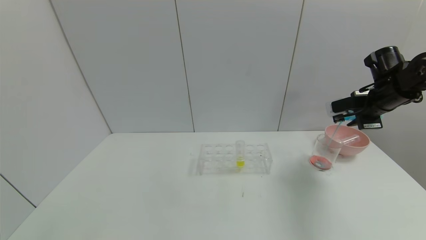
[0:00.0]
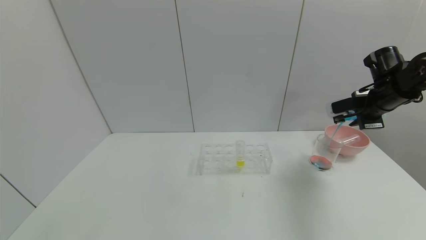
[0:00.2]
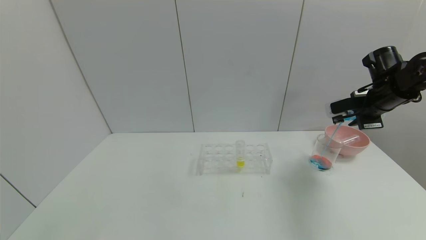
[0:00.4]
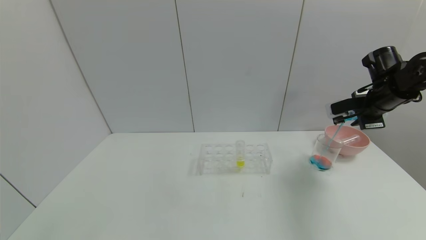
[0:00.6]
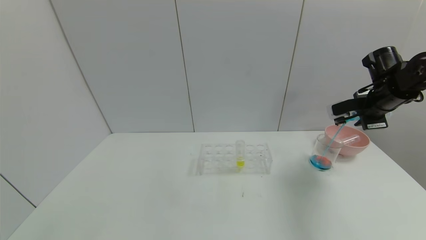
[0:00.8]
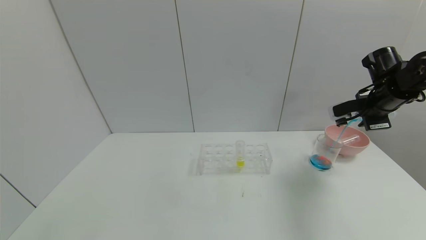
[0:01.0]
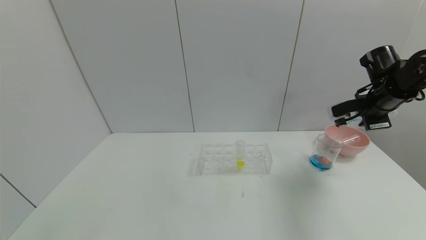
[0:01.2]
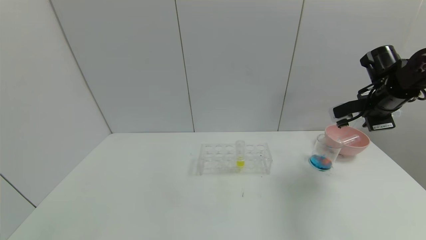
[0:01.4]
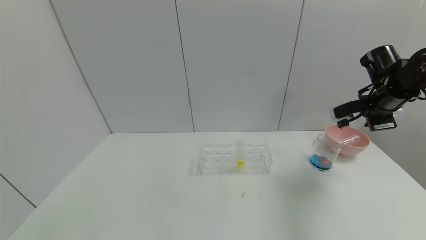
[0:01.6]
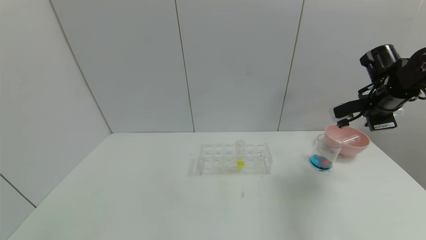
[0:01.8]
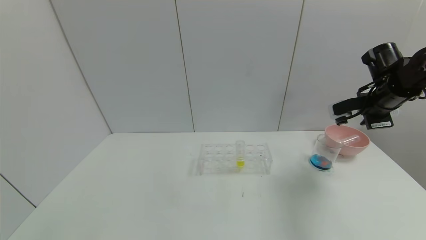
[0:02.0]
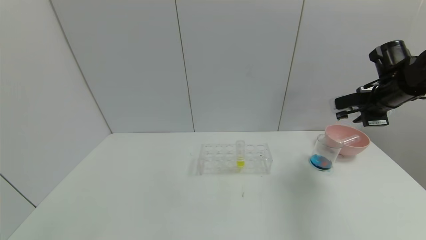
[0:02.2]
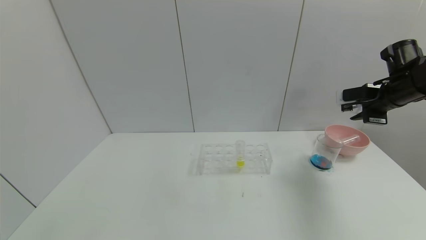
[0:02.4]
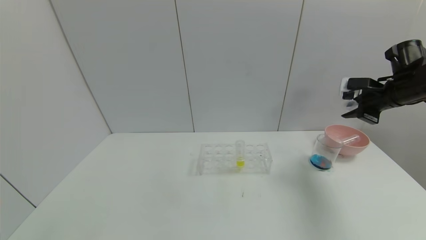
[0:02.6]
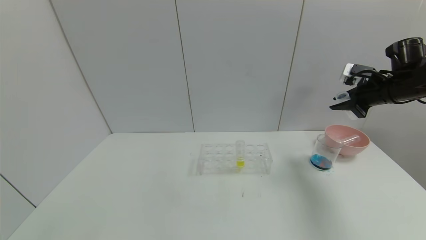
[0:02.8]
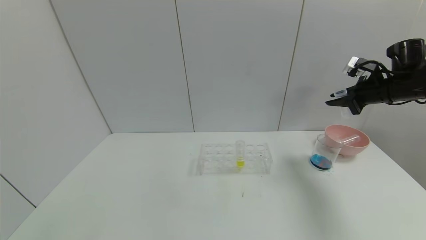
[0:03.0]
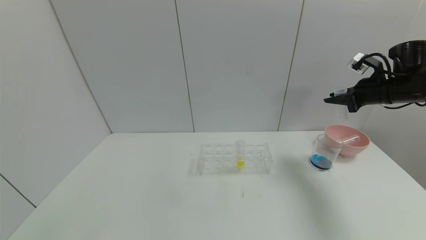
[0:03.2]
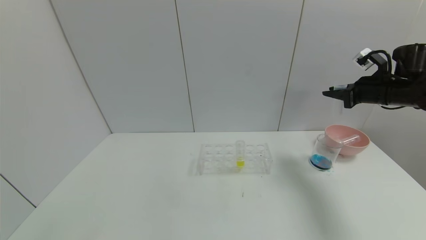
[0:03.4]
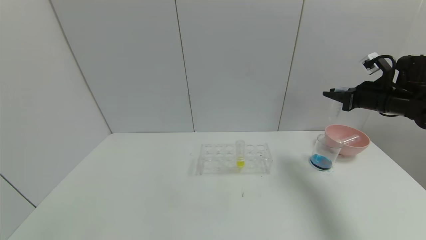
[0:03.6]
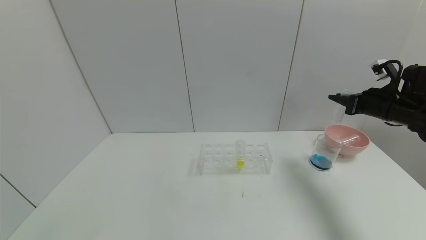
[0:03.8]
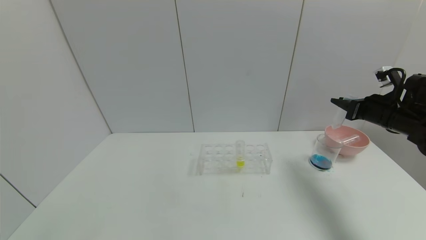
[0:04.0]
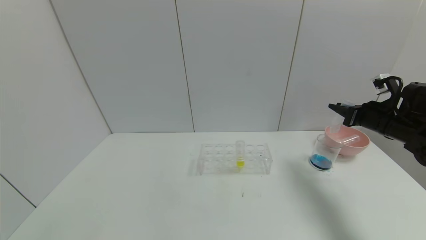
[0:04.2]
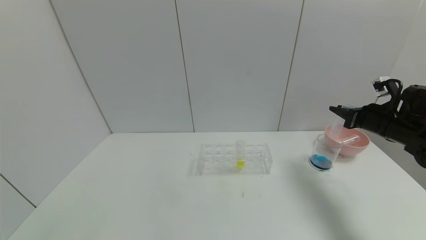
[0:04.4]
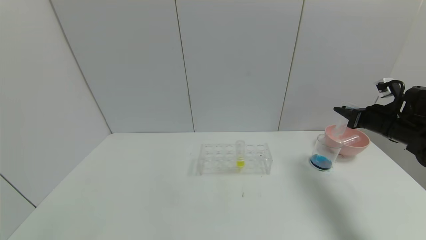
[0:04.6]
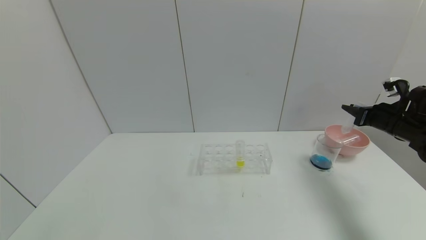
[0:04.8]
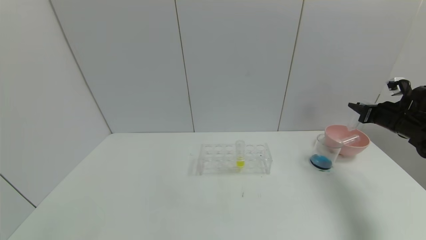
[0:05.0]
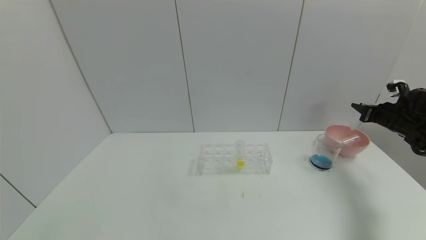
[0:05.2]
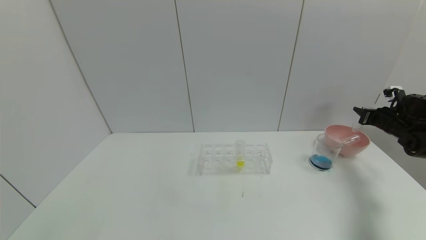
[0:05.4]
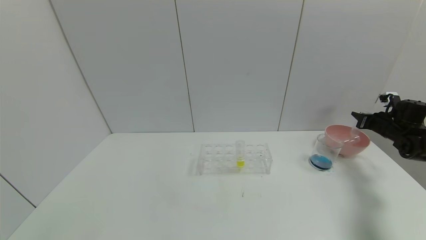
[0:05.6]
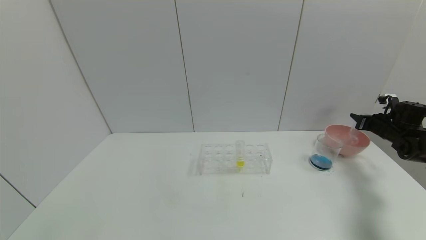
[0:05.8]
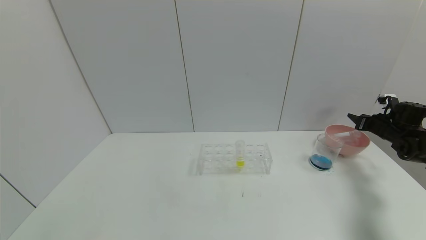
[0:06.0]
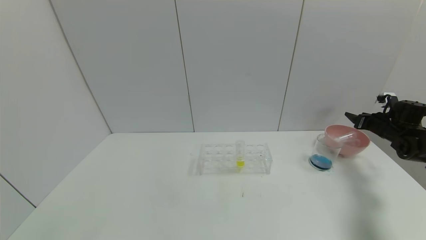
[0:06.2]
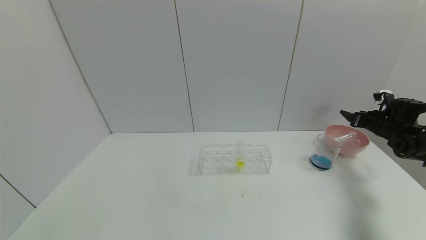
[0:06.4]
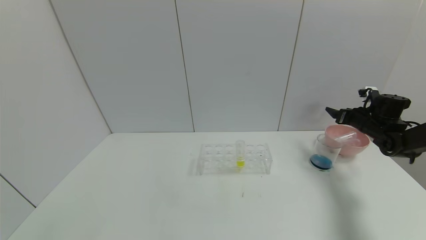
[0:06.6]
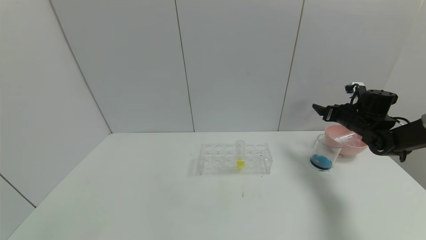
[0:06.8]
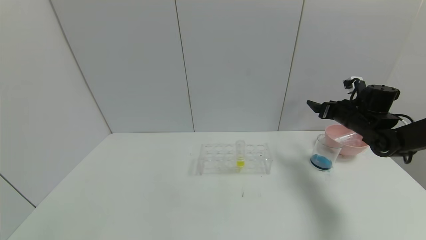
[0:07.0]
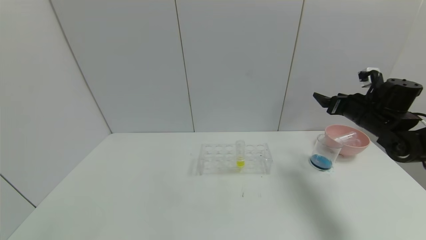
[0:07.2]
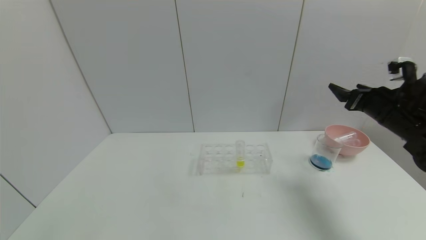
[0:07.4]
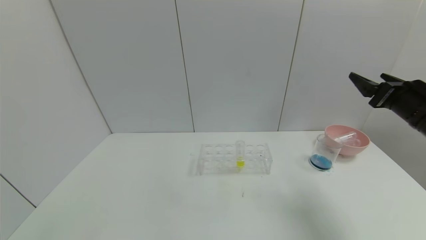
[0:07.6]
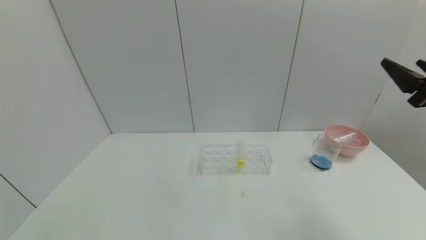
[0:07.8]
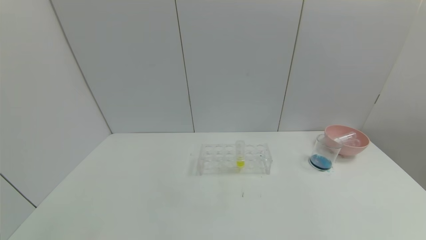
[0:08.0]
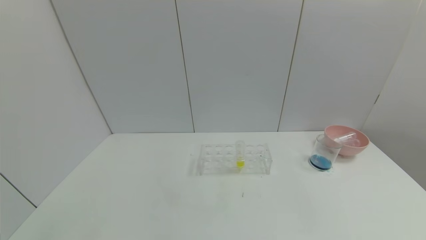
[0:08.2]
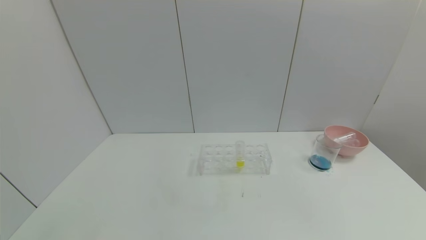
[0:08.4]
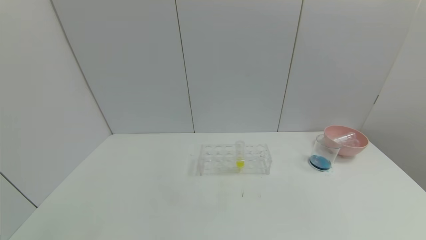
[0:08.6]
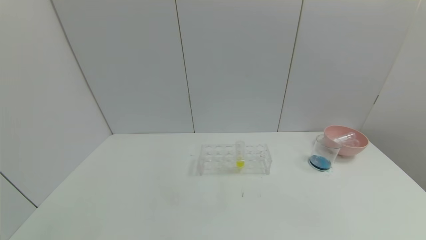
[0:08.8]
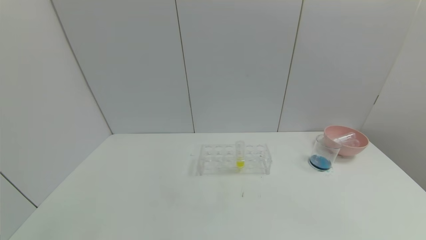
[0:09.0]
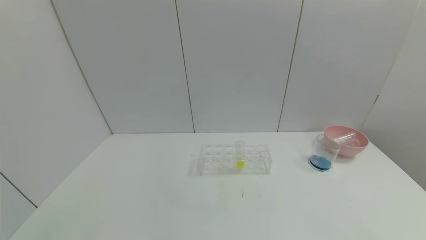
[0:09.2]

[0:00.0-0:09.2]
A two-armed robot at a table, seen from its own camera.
Task of the whole recording: pick up the test tube with red pigment and the test tube with blue pigment by grippers and pour them into the container.
Step, 0:01.8 to 0:06.0: Place the test tube into the bowl with the right gripper.
0:00.0 to 0:01.6: The grippers stay close to where they were, moving slightly.
0:03.0 to 0:04.6: The right gripper travels downward by about 10 cm.
0:04.6 to 0:06.2: The right gripper goes about 15 cm to the right, forward and downward, and opens up.
0:06.2 to 0:07.6: The right gripper heads backward, to the left and upward, covering approximately 25 cm, and opens up.
0:07.6 to 0:09.2: The right gripper heads backward and downward, covering approximately 35 cm.
